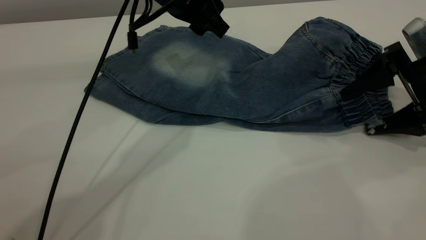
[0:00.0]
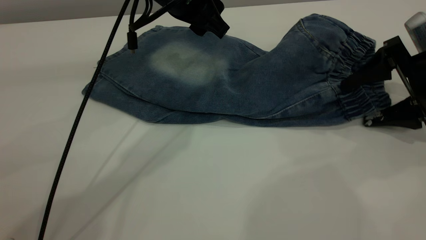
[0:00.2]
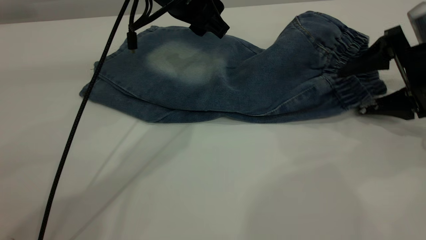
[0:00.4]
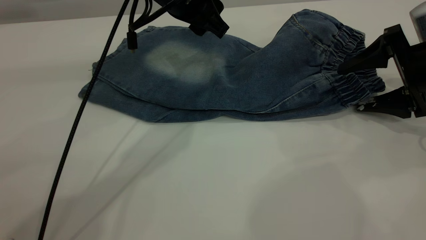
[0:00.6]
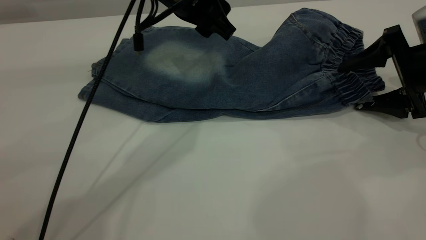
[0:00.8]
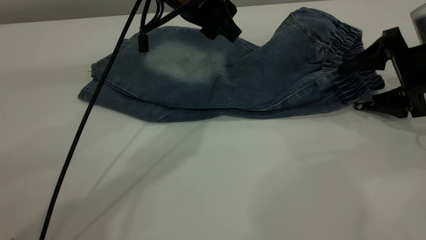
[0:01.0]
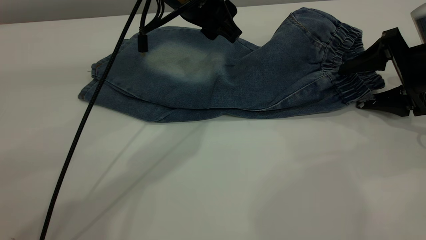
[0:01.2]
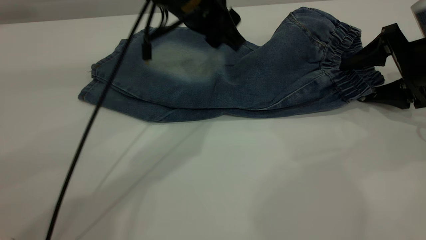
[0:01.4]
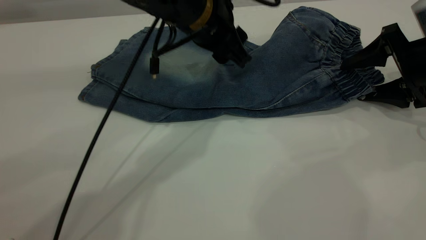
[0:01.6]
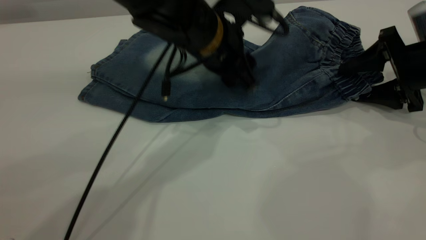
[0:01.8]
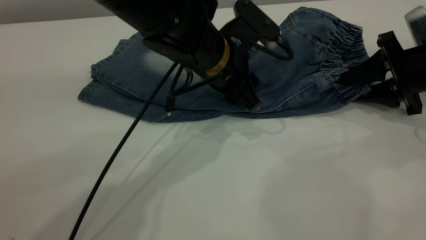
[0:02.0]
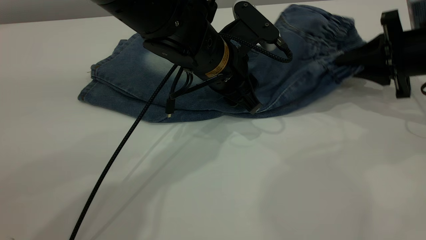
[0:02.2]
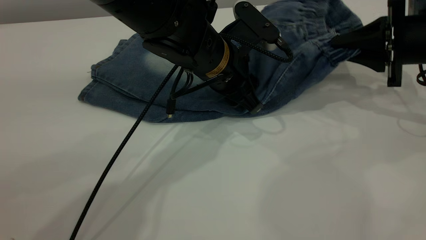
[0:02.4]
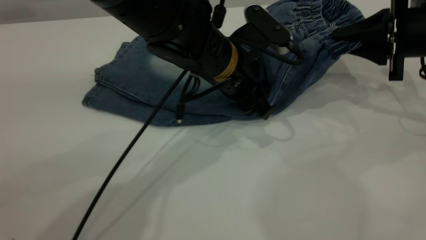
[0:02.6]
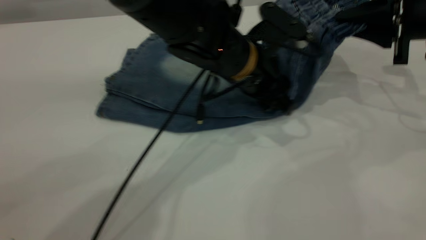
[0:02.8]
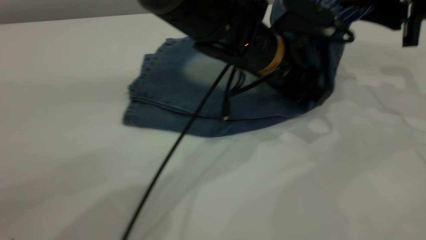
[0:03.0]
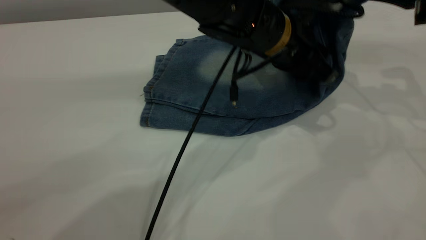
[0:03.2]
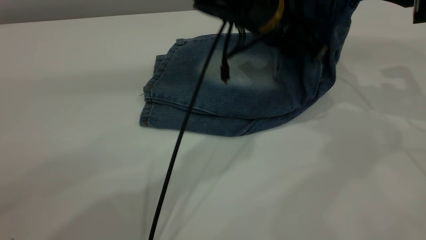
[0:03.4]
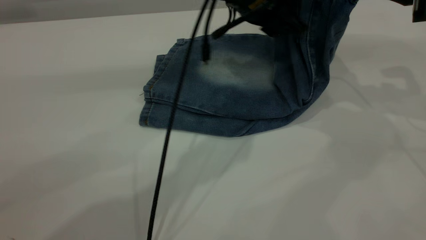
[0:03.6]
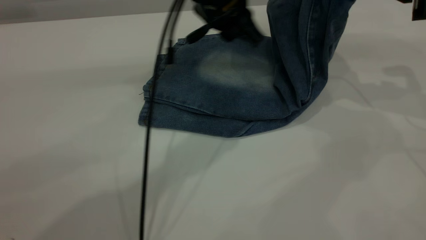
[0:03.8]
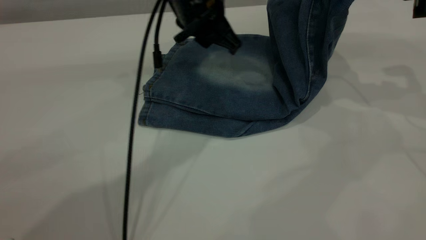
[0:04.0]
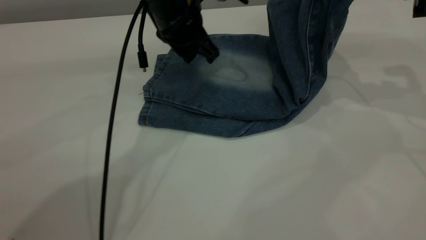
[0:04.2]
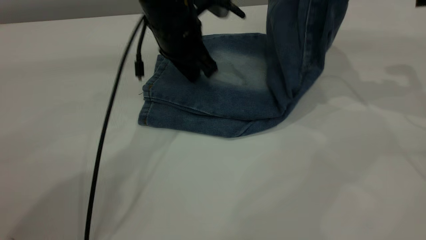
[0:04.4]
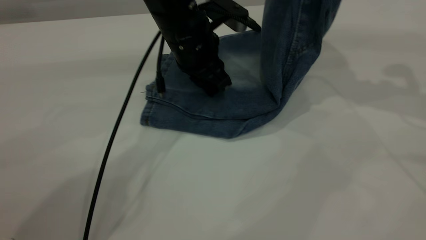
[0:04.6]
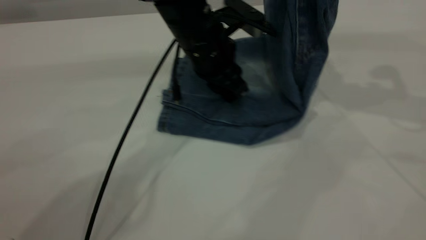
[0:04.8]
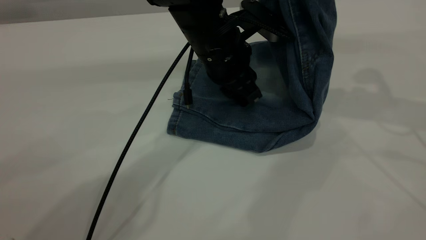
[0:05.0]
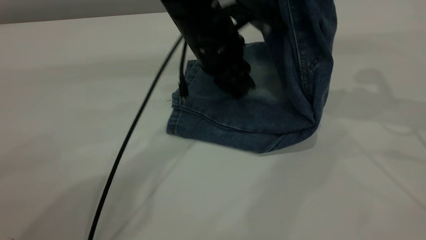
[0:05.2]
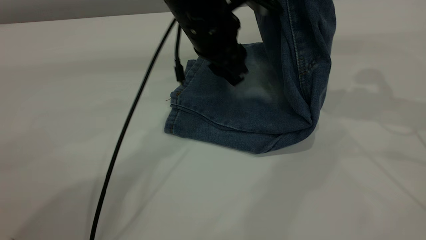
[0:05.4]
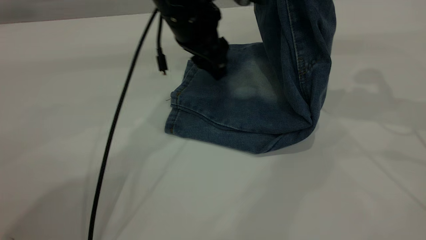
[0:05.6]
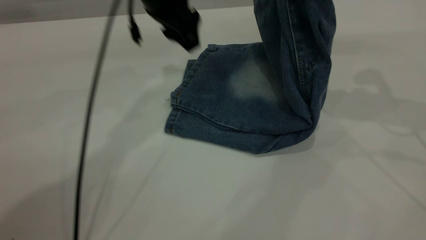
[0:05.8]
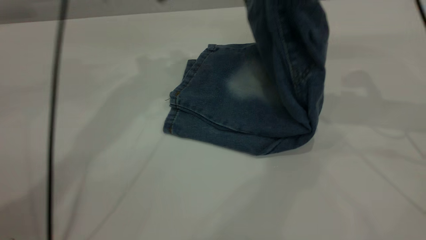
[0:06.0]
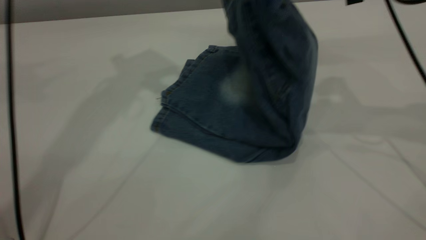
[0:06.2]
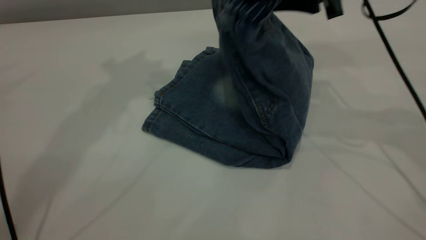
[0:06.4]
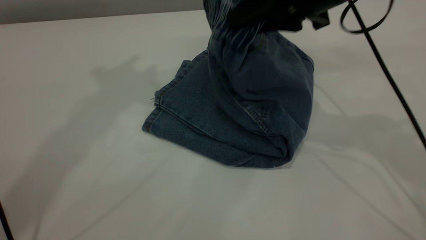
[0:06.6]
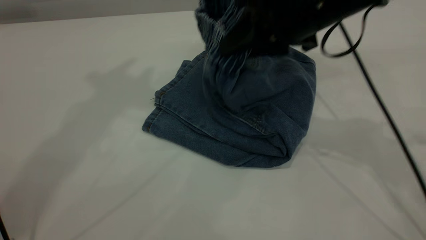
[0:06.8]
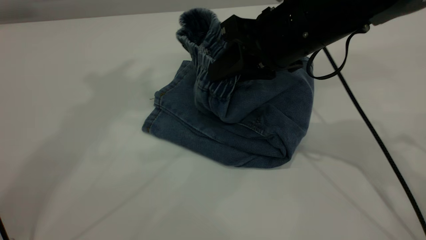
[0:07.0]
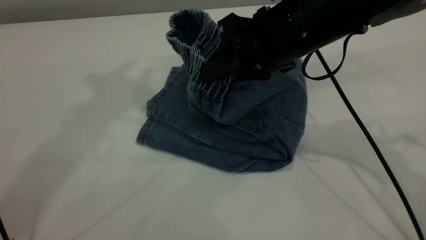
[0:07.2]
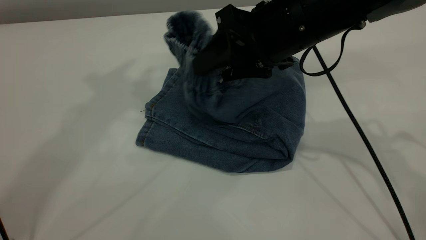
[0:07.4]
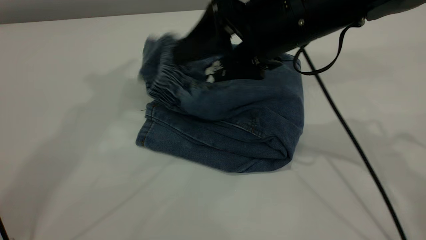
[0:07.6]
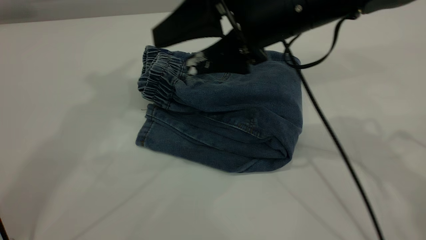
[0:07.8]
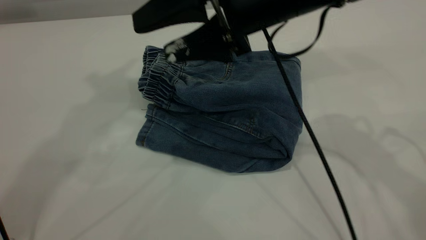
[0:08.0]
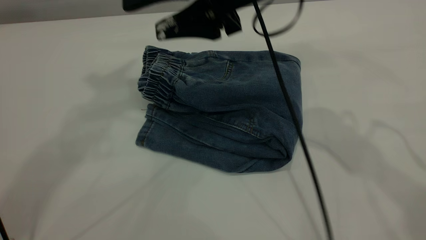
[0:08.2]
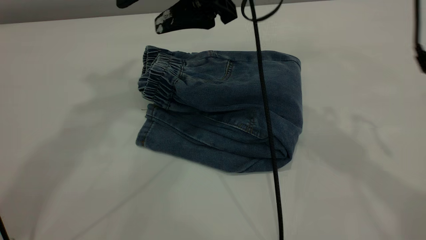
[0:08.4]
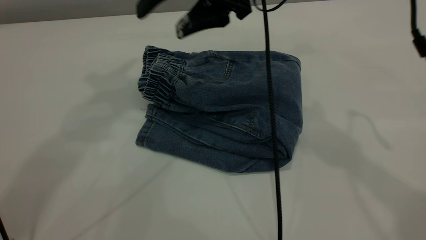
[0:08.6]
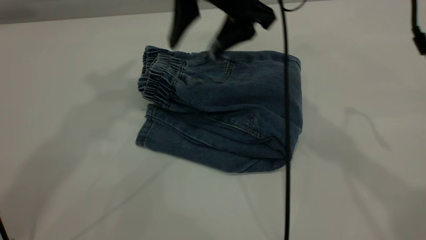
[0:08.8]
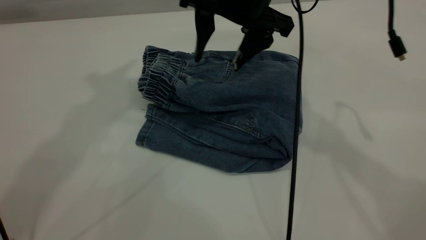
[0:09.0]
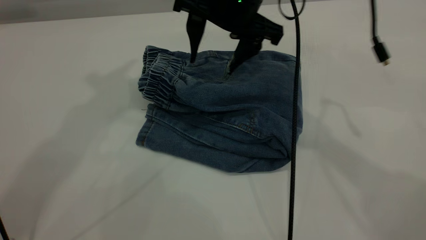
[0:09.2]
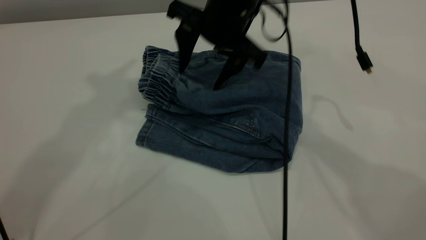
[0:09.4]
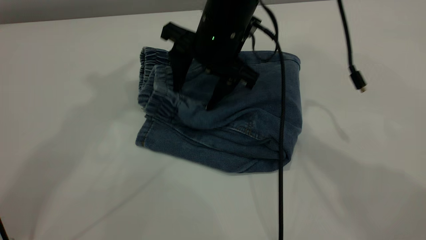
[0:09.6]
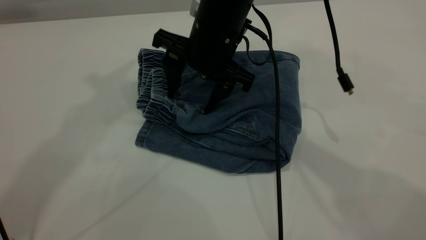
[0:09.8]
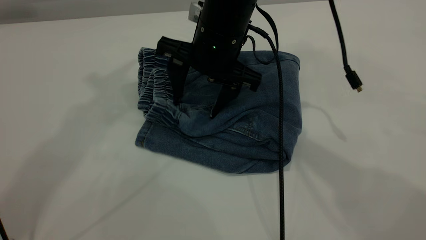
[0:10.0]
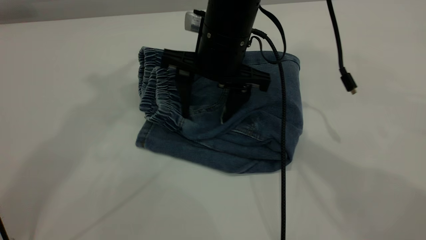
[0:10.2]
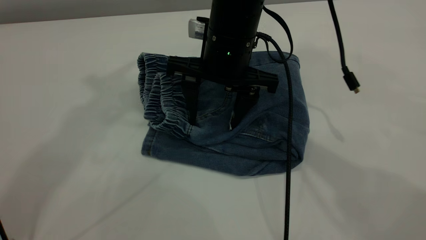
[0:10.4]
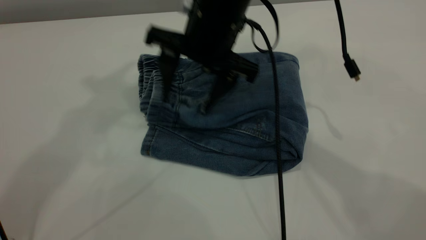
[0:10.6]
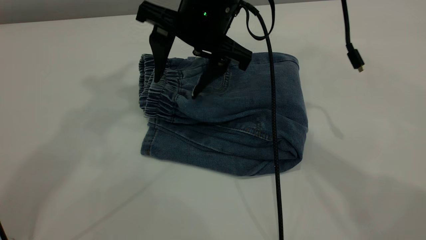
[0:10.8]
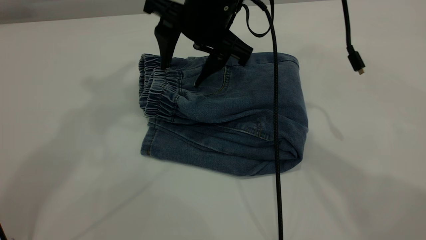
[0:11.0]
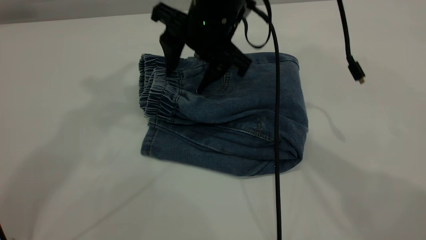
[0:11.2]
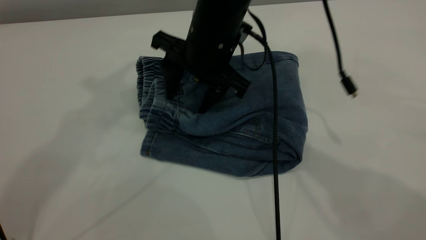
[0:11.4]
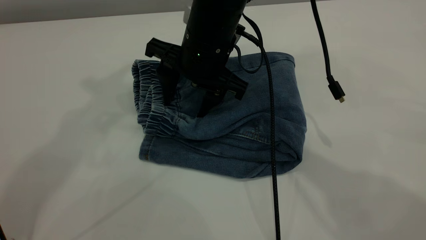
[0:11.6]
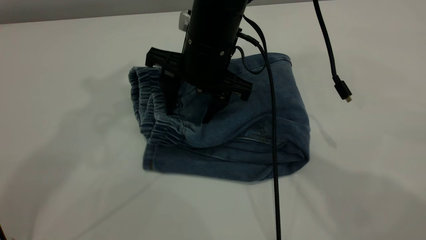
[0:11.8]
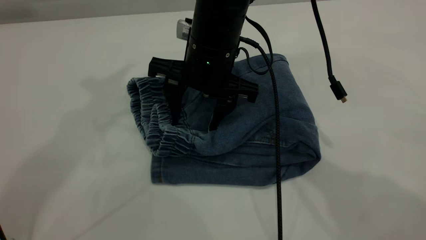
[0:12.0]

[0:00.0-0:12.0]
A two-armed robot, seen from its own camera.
Step, 0:00.0 to 0:08.0: Fold your pants from right to left.
0:00.0 to 0:01.6: The left gripper changes place by about 5 cm.
0:01.6 to 0:03.0: The right gripper travels upward by approximately 10 cm, and closes. Meanwhile the left gripper moves to the right, approximately 10 cm.
0:03.0 to 0:04.4: The left gripper moves to the left and forward, approximately 15 cm, and closes.
0:04.4 to 0:06.0: The left gripper shifts some 20 cm upward and to the left, and opens, while the right gripper shifts about 5 cm to the left.
0:06.0 to 0:07.6: The right gripper shifts about 15 cm to the left and downward, and opens, while the left gripper heads upward and backward, covering some 20 cm.
0:07.6 to 0:09.0: The right gripper travels forward by some 5 cm.
0:09.0 to 0:10.4: The right gripper is displaced downward by approximately 5 cm.

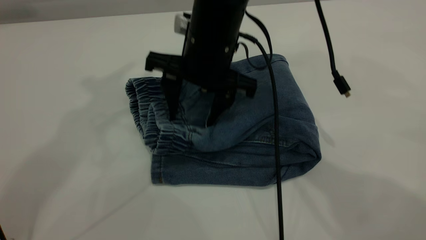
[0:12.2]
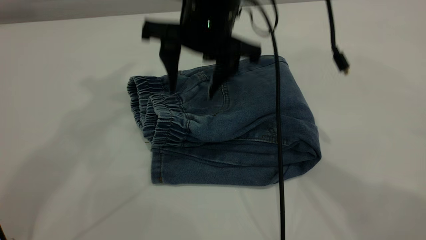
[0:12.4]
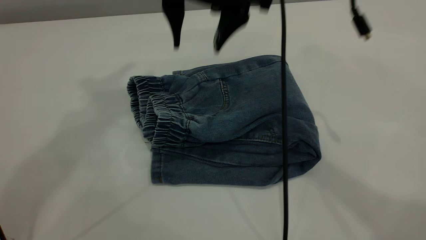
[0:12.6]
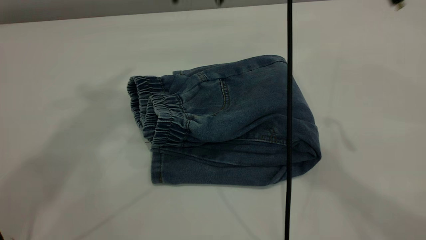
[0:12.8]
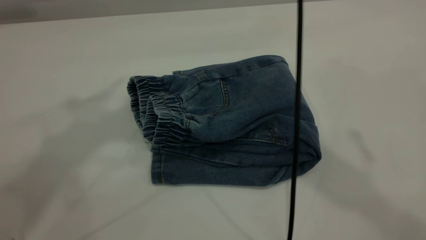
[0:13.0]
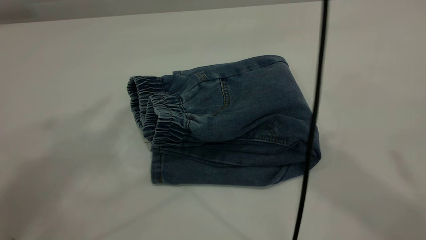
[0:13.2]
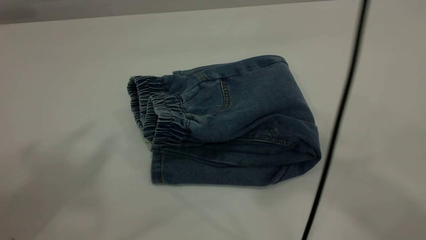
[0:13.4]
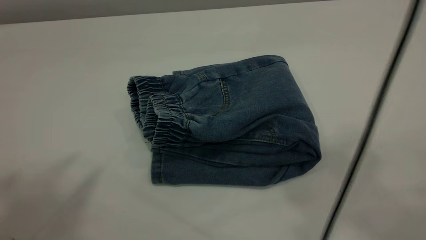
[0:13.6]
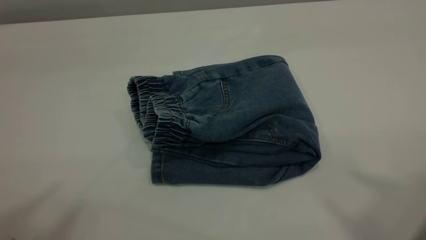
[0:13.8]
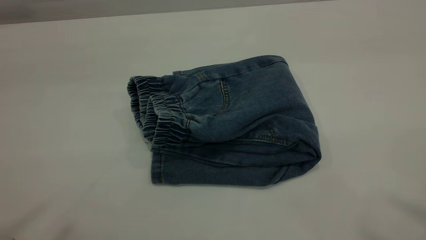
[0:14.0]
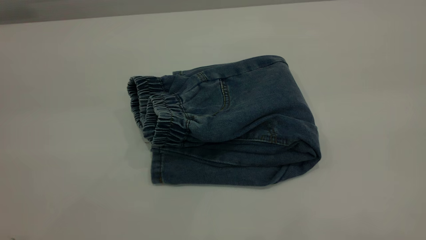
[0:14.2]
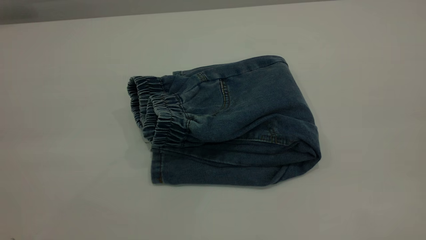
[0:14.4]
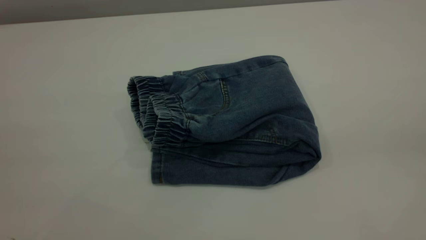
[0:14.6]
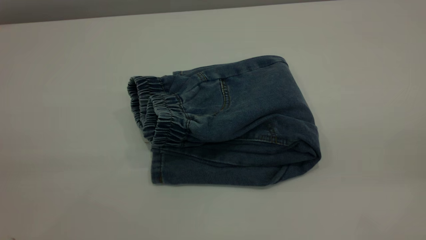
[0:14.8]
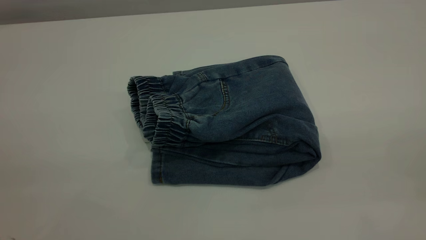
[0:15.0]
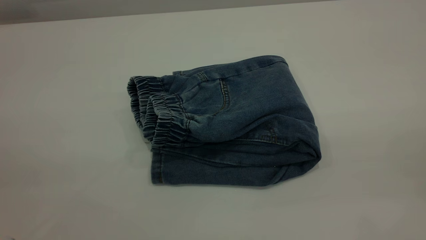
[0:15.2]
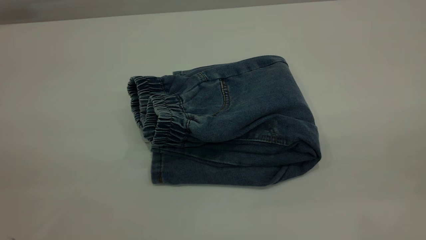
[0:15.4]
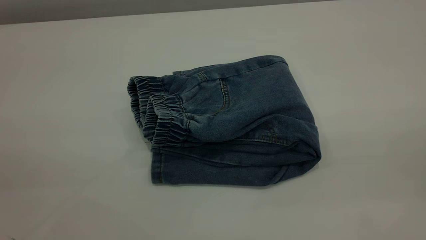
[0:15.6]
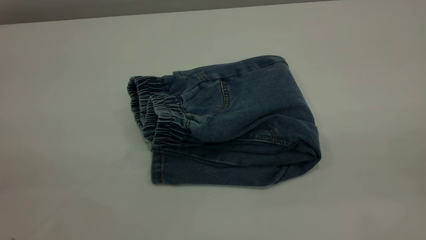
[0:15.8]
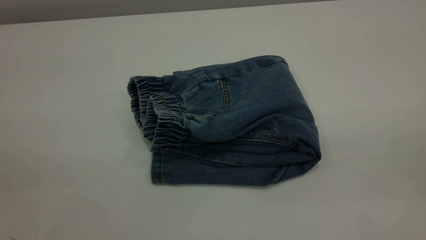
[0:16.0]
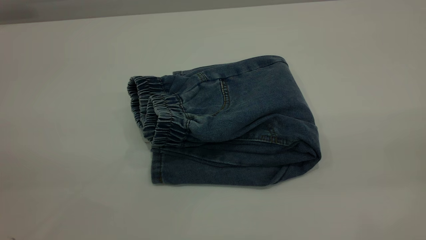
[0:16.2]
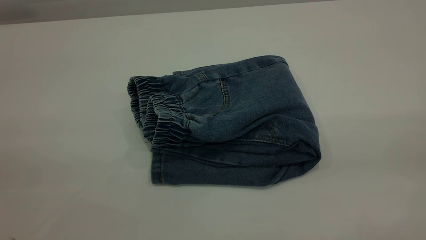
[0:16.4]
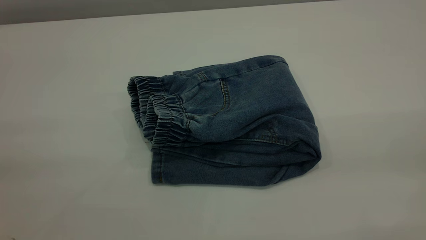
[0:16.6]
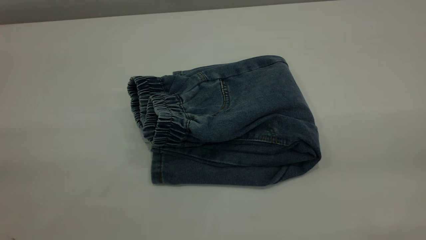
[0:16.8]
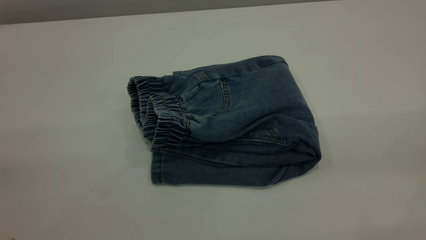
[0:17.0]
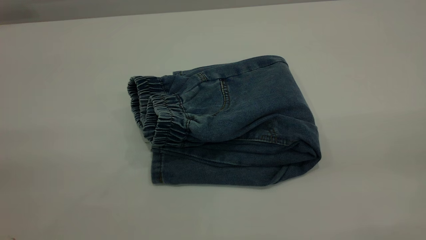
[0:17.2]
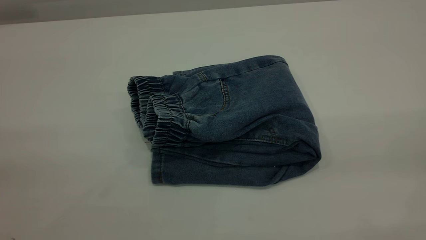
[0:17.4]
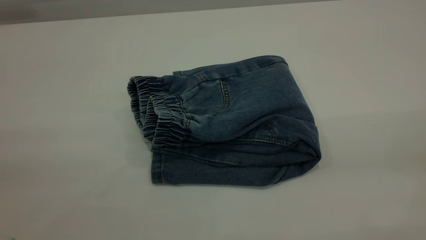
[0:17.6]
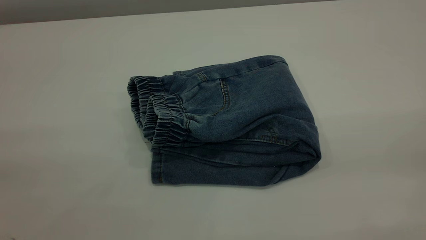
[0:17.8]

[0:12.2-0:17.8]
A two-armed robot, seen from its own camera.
0:12.2 to 0:13.6: The left gripper shifts some 20 cm backward; the right gripper goes approximately 40 cm upward, backward and to the right.
0:13.6 to 0:15.0: The right gripper is displaced downward, backward and to the right by some 30 cm.
